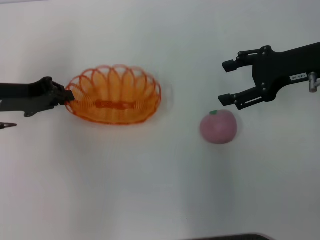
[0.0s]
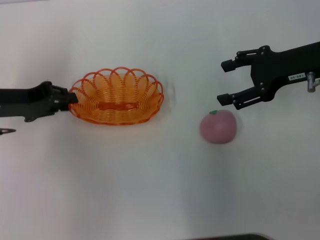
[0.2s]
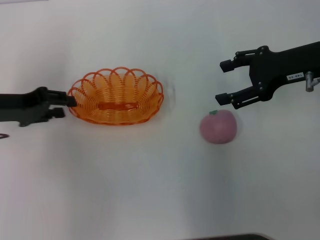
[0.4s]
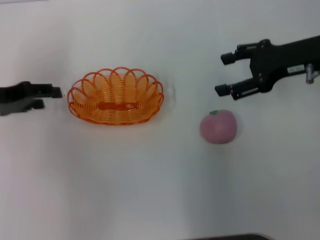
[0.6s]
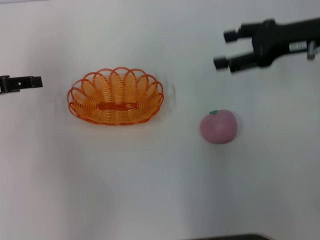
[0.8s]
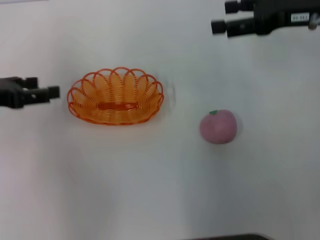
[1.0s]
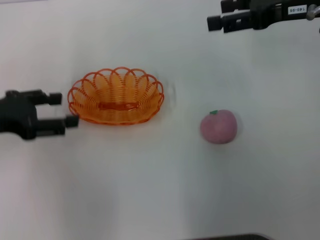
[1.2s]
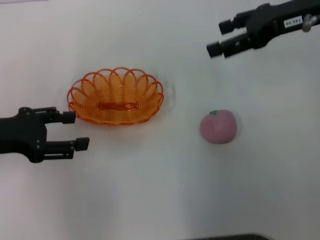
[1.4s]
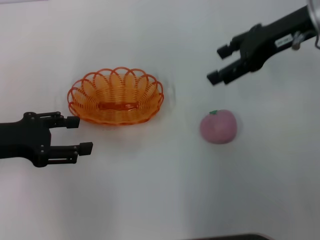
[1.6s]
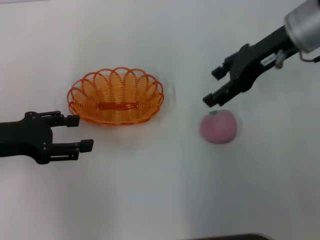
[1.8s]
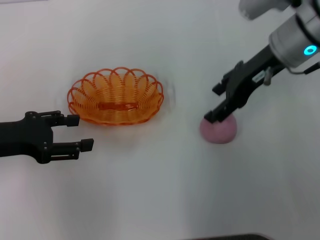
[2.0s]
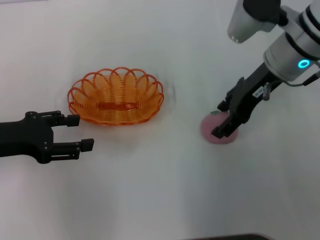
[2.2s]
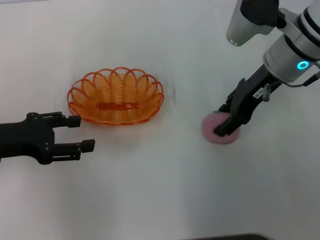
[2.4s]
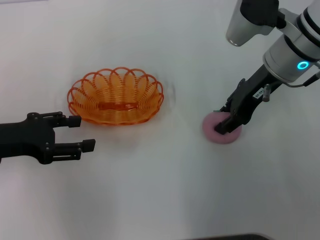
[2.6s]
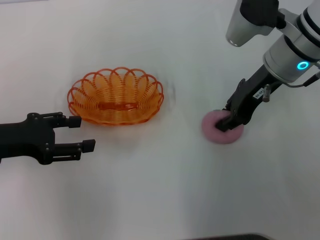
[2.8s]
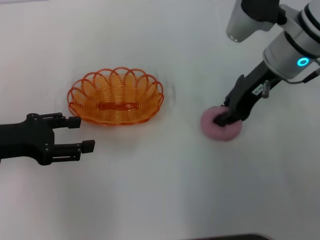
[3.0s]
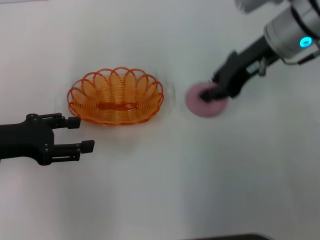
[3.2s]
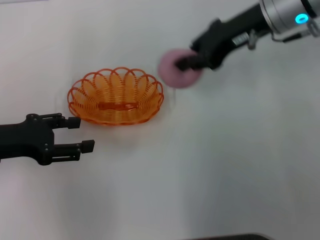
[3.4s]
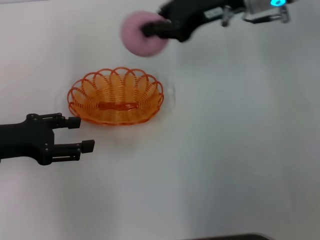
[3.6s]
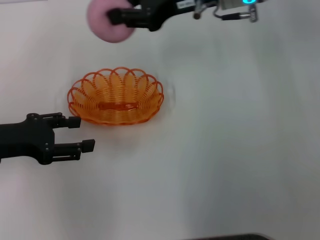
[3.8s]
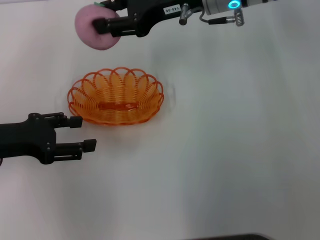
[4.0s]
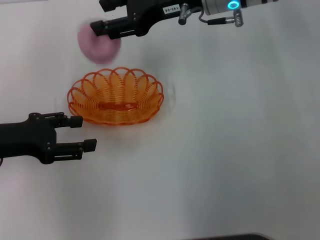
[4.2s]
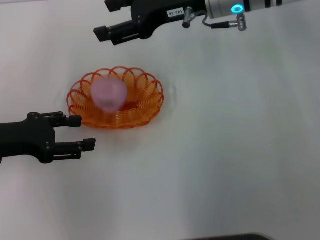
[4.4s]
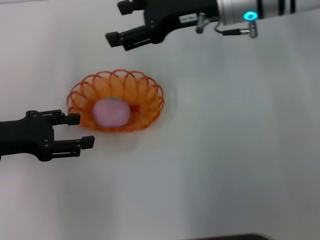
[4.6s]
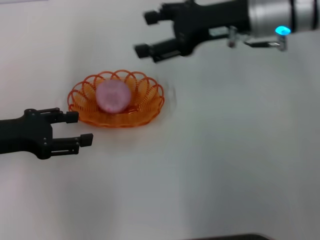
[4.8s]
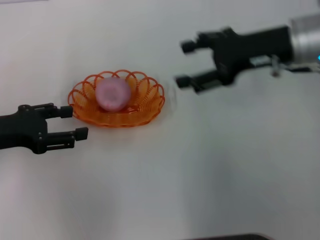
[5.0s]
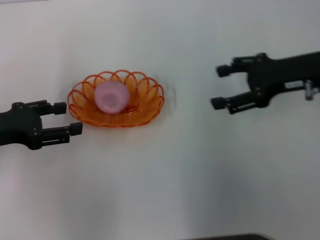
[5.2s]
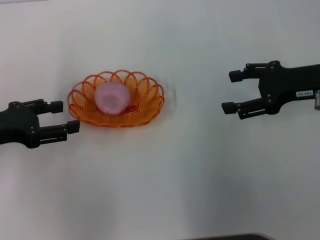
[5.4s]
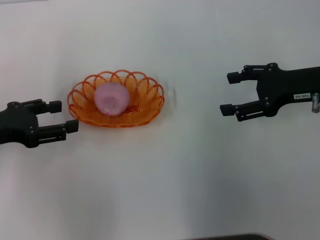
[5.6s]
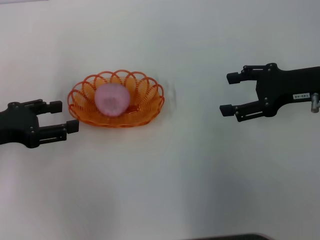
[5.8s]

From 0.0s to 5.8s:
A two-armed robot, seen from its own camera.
Step, from 0.4s to 3.0s: Pick up the peach with the right gripper.
Step, from 3.4s to 4.4s: Place the peach into the basket with the right gripper.
From 0.0s to 1.4s: The right gripper moves upward, roughly 5 cm; the left gripper travels backward by roughly 5 cm, and opens up.
From 1.4s to 2.8s: The right gripper moves to the left and downward, some 10 cm, and closes its fingers.
From 2.8s to 4.4s: The right gripper moves to the left, approximately 5 cm.
From 4.4s to 5.8s: The right gripper goes some 20 cm to the right, backward and downward, and opens.
